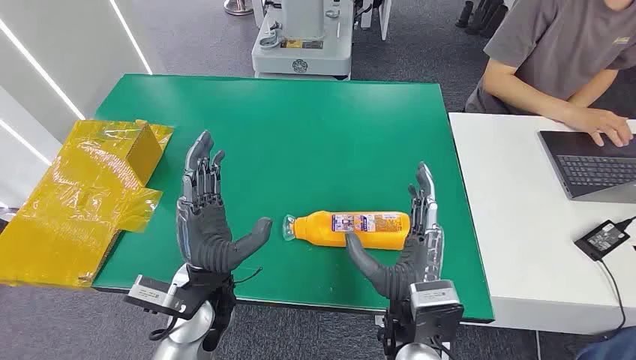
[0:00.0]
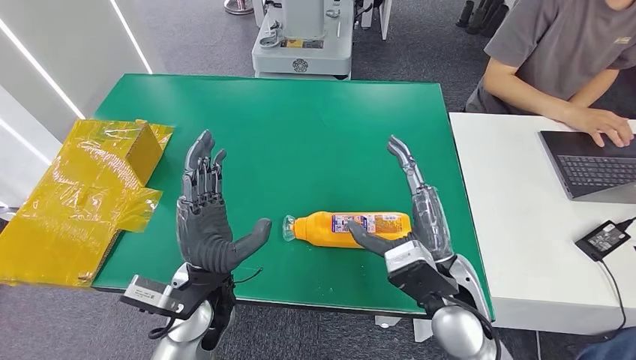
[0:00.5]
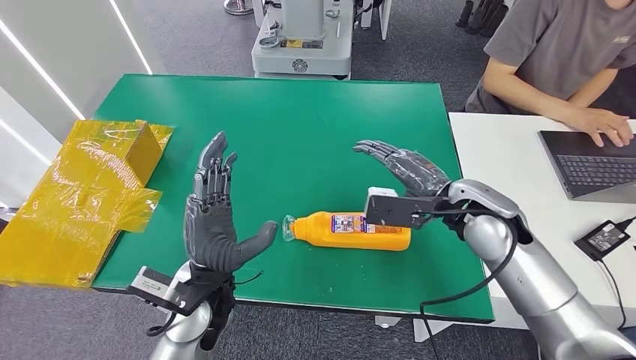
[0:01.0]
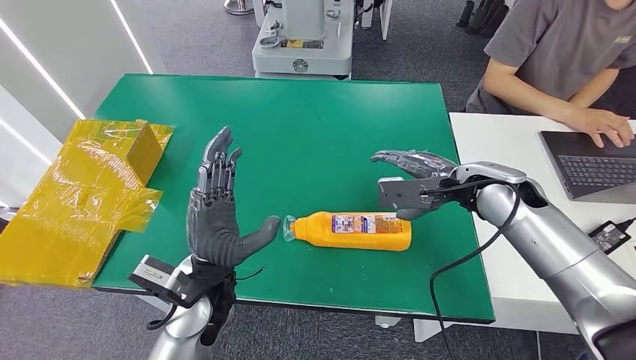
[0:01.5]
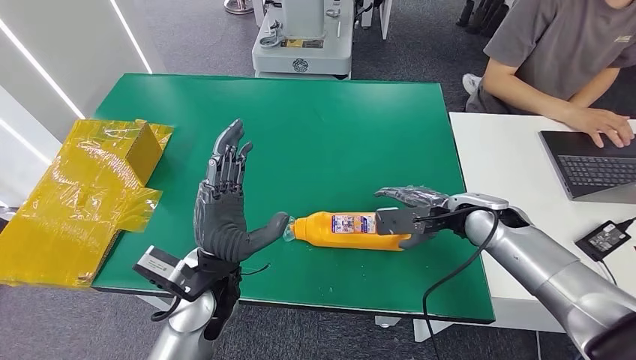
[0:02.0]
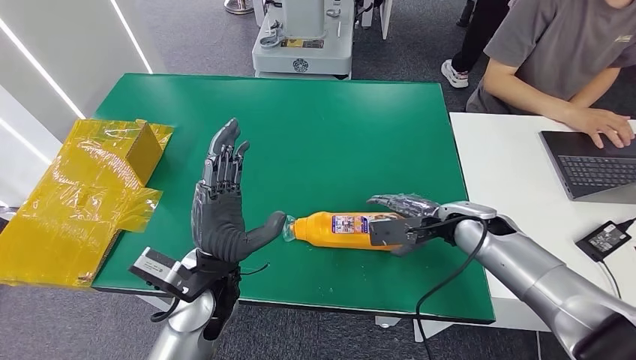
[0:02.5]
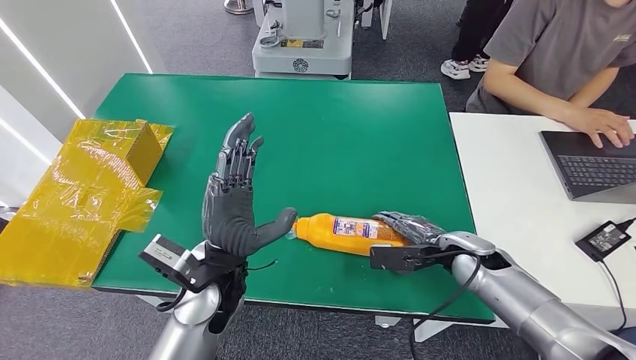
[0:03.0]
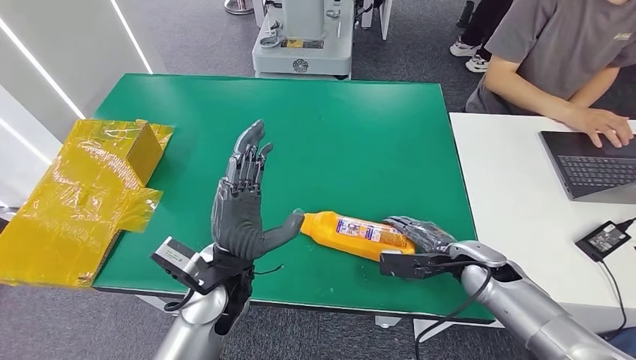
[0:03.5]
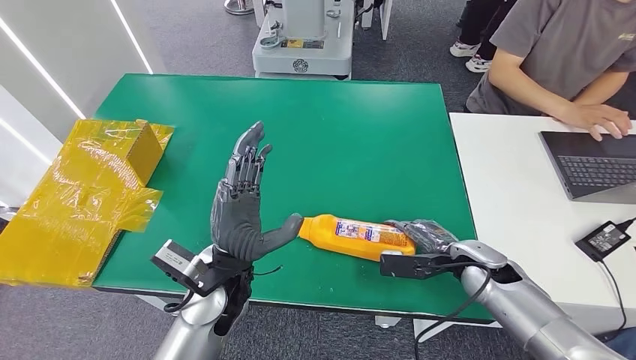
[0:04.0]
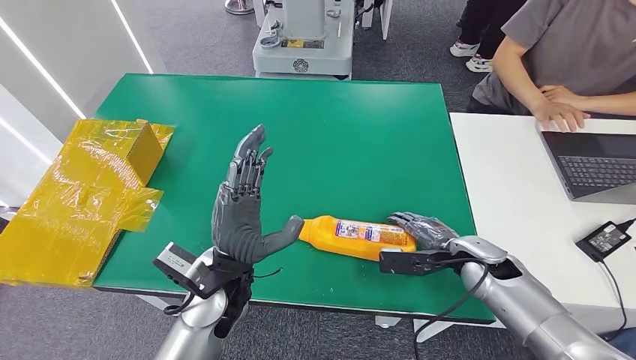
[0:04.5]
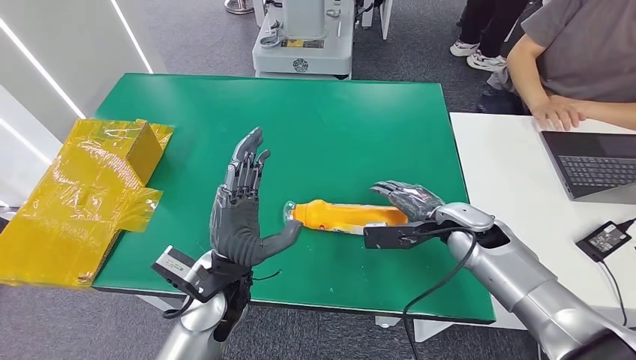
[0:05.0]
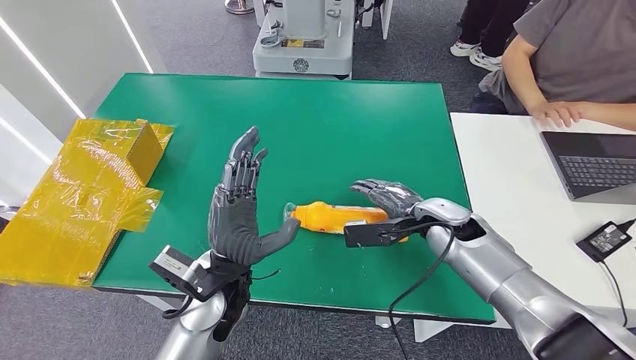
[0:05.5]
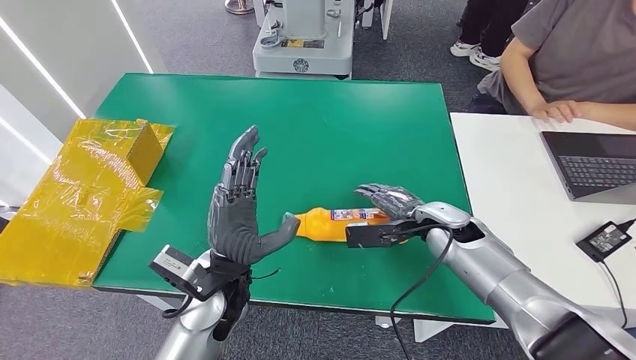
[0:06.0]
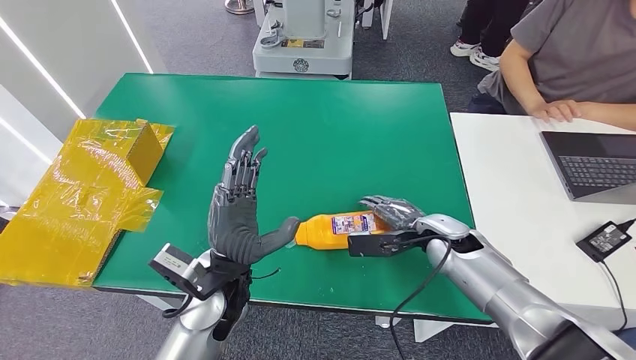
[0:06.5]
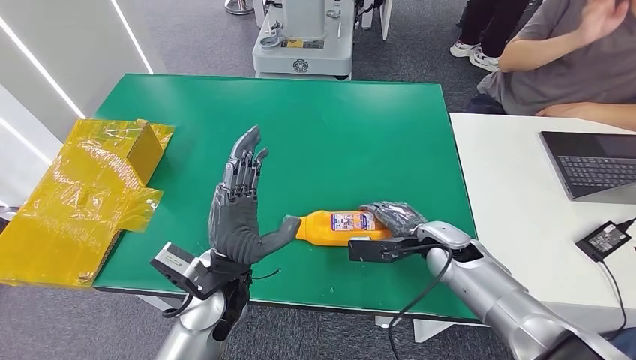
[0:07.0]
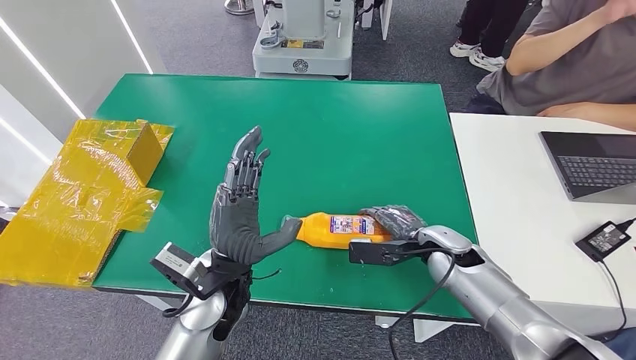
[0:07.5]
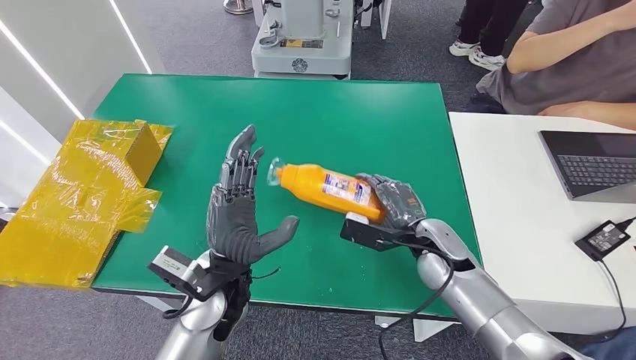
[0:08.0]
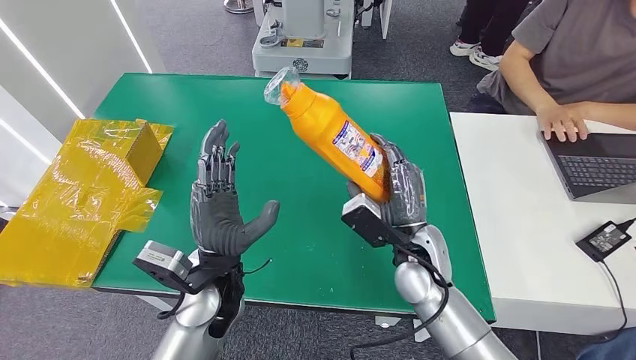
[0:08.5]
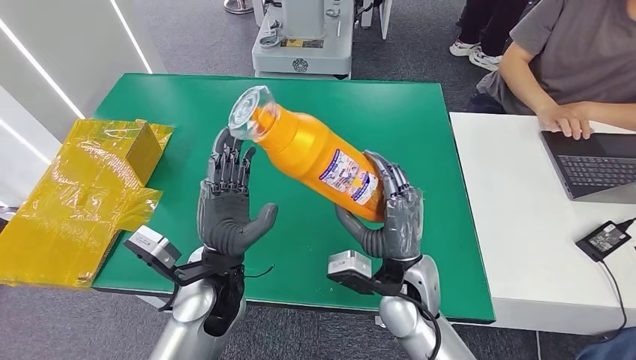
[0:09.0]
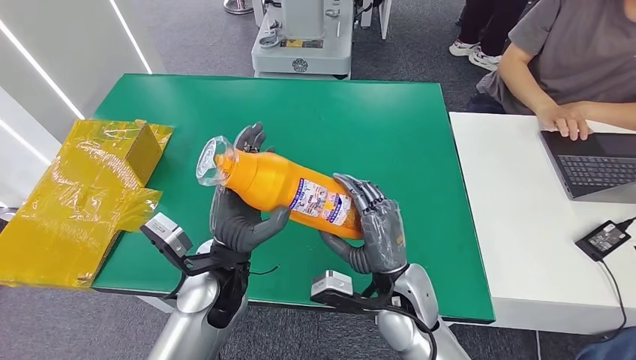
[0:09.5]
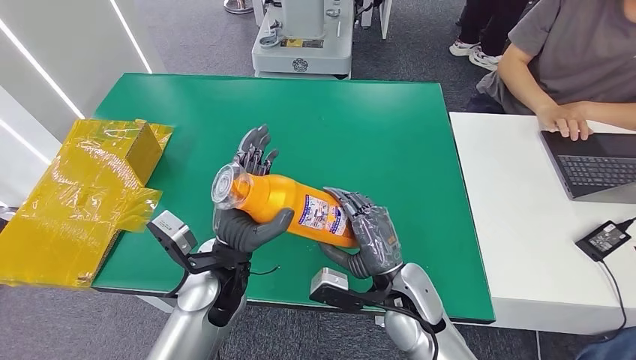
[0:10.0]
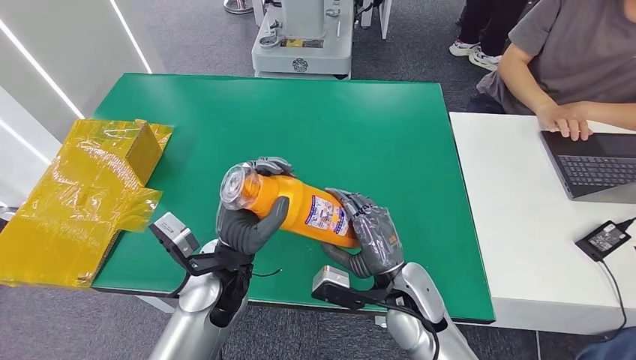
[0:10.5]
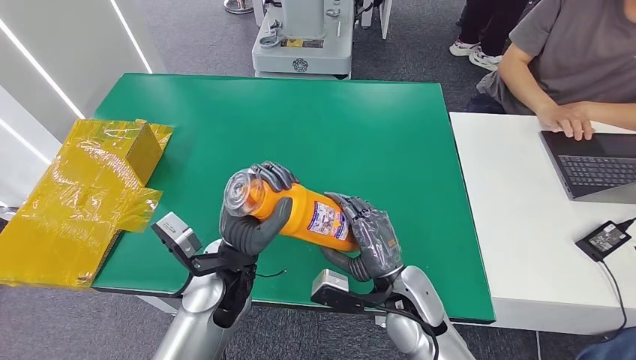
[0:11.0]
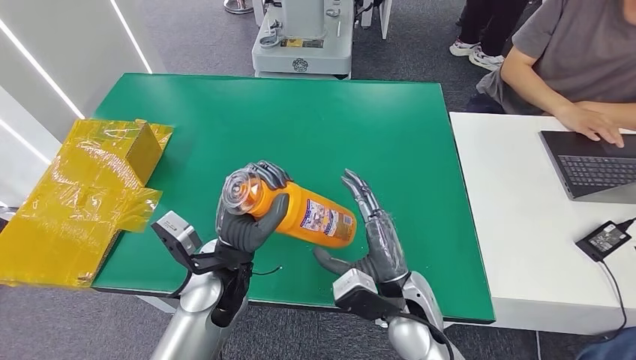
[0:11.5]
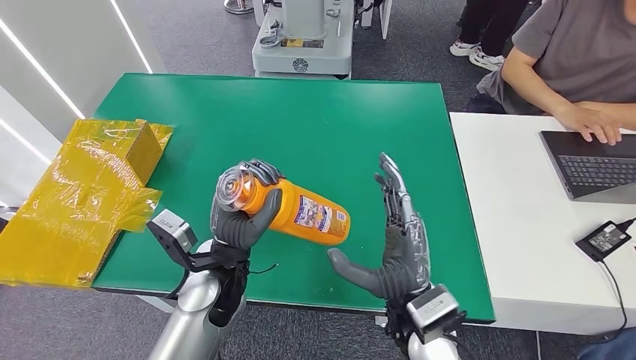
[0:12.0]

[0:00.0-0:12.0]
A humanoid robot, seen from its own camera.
Step, 0:00.0 to 0:08.5: Pick up the bottle from the table.
0:02.0 to 0:04.0: The right hand moves downward and backward, approximately 10 cm.
0:04.0 to 0:06.0: The right hand travels to the left and forward by about 10 cm.
0:06.0 to 0:08.0: The right hand ends up roughly 5 cm from where it was.
0:08.0 to 0:10.0: The right hand travels backward and to the left by about 15 cm.
0:10.0 to 0:12.0: The right hand changes place by approximately 5 cm.

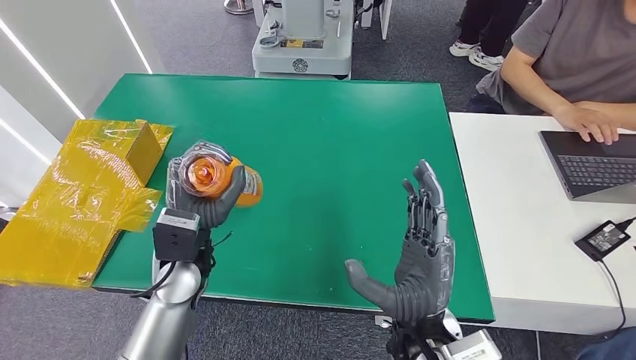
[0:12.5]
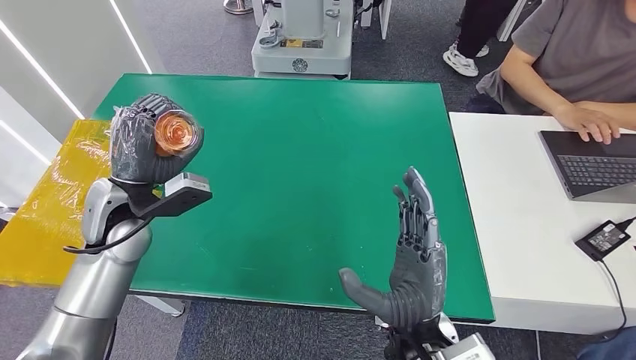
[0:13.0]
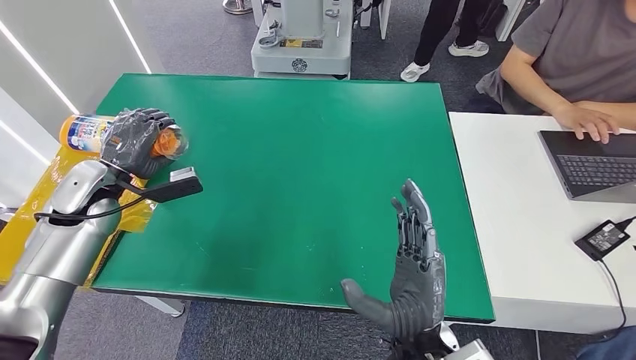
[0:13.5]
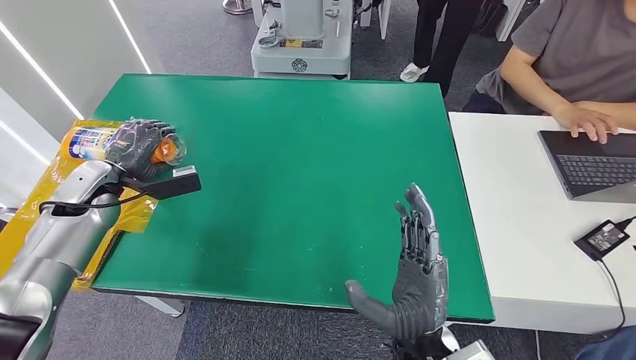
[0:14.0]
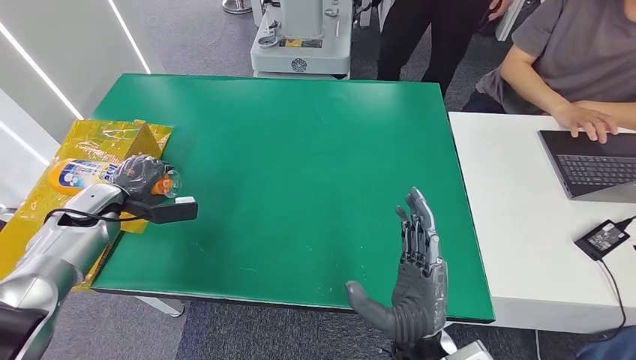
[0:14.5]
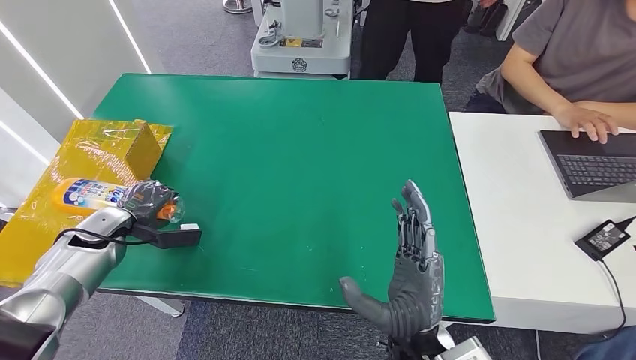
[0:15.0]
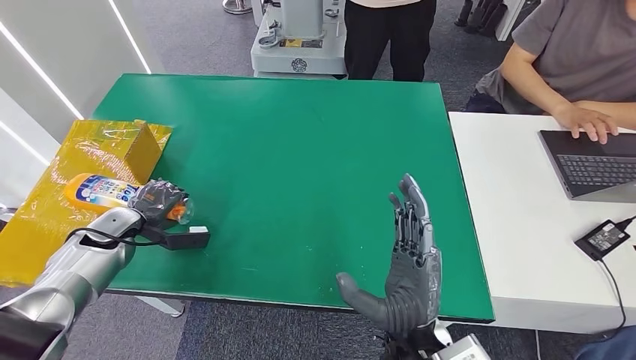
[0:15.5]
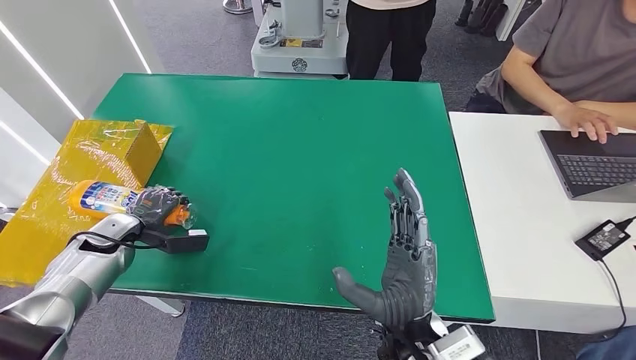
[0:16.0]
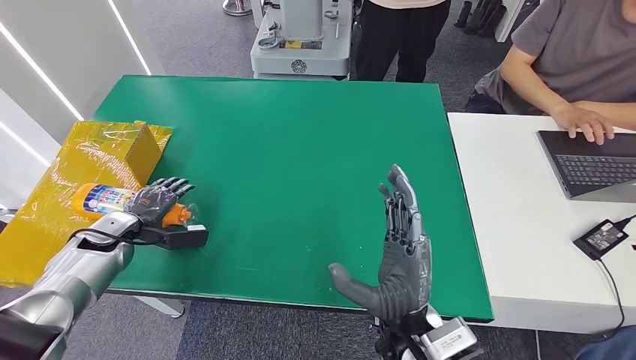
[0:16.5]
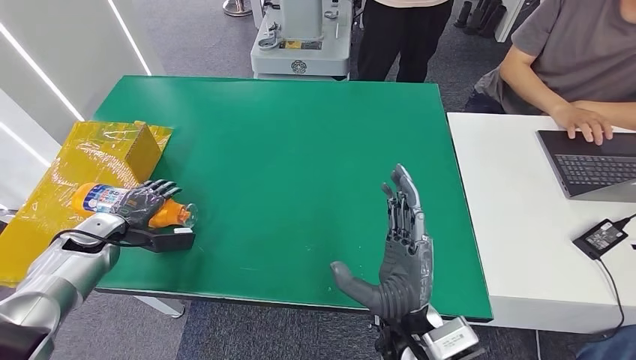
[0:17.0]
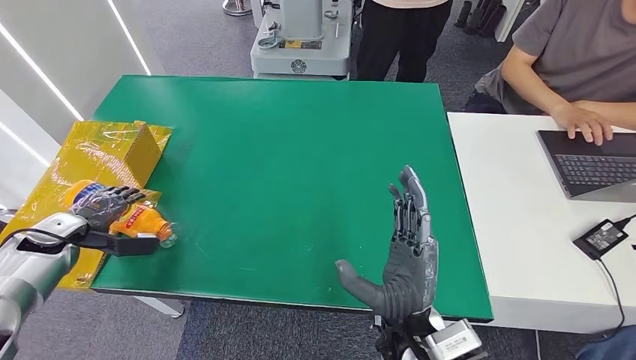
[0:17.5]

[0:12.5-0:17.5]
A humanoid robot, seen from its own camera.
Step, 0:12.5 to 0:17.5: Turn the bottle to the front side.
0:12.5 to 0:15.0: The left hand is displaced to the left by about 25 cm.
0:15.0 to 0:17.5: The left hand travels to the left by about 10 cm.

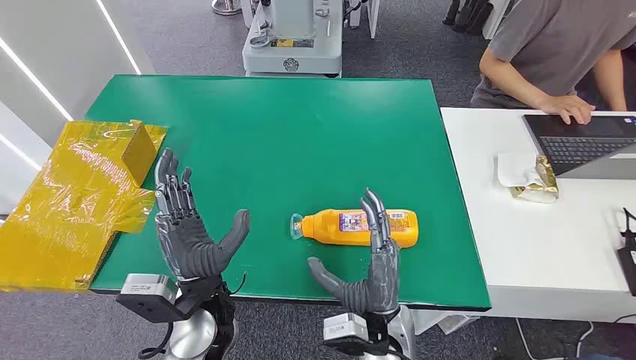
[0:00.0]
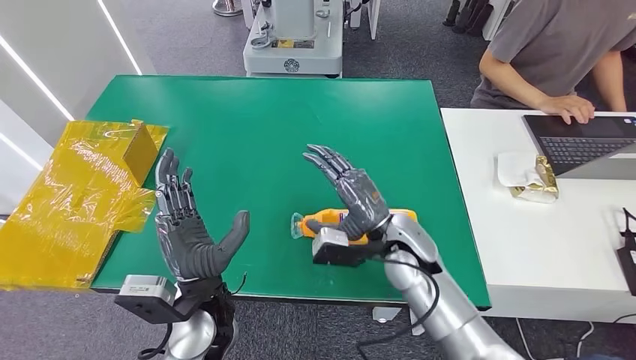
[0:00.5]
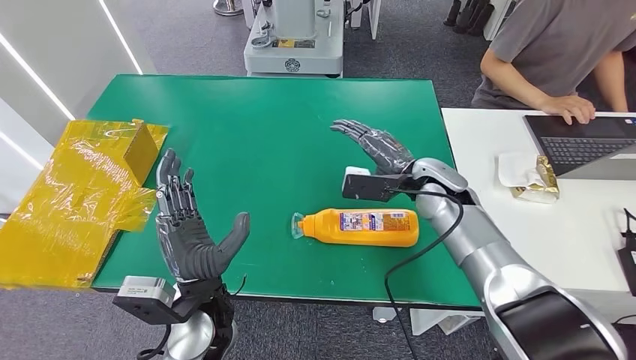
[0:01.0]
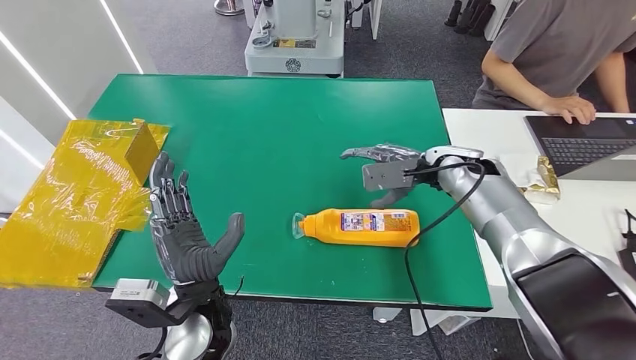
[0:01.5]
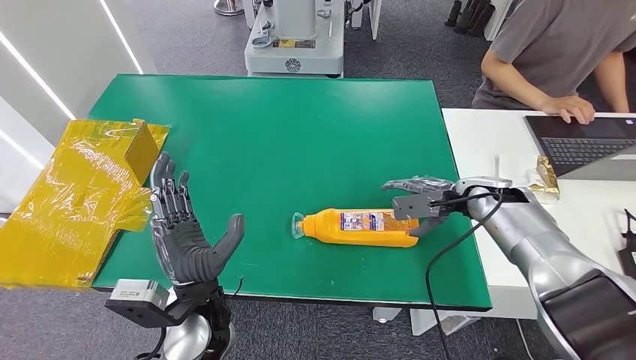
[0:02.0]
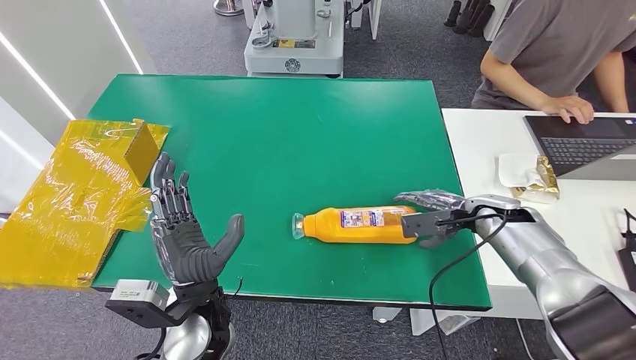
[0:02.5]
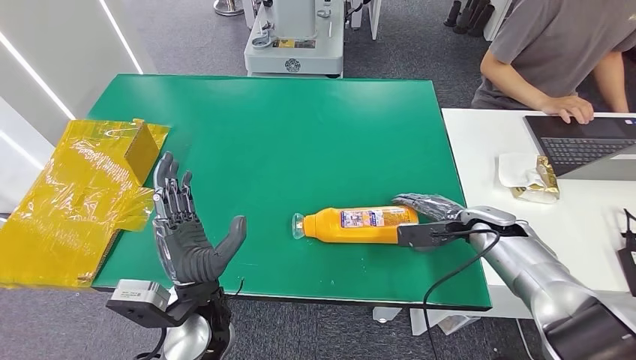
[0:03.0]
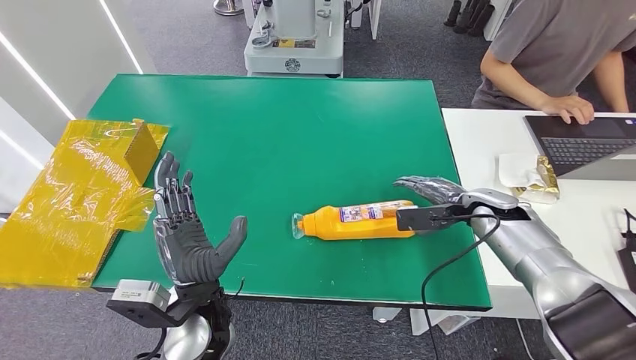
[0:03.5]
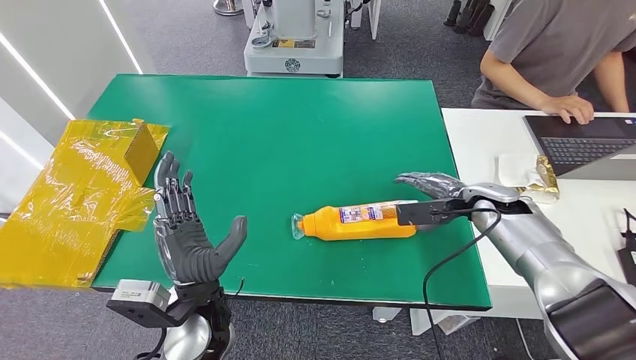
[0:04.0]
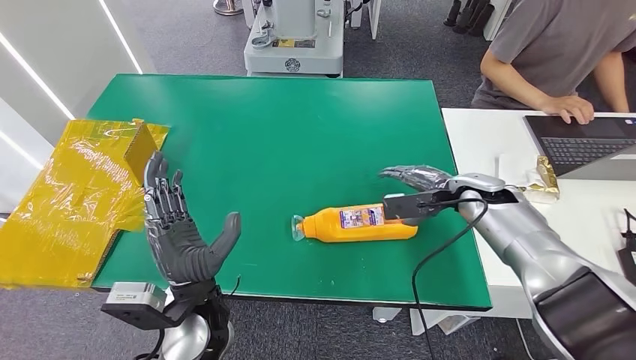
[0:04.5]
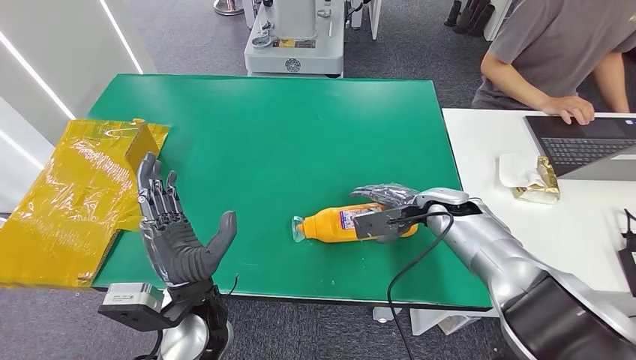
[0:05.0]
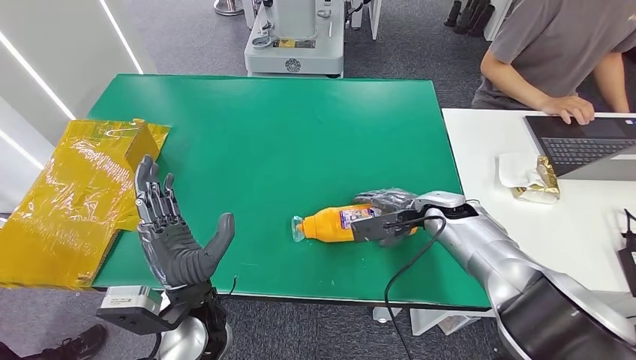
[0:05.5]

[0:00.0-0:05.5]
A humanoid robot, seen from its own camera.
0:03.5 to 0:05.5: The right hand goes roughly 10 cm to the left.
